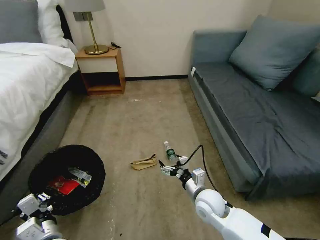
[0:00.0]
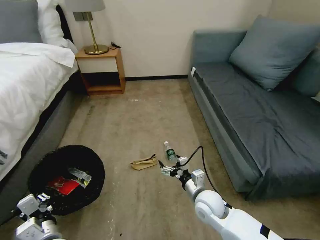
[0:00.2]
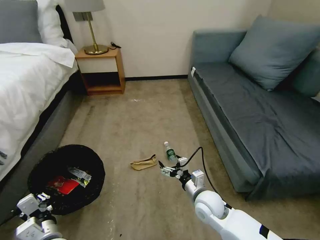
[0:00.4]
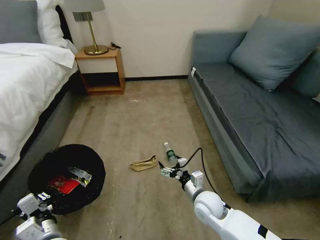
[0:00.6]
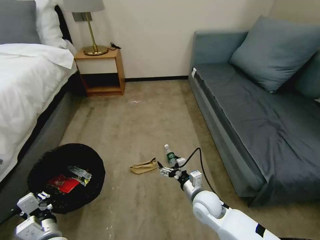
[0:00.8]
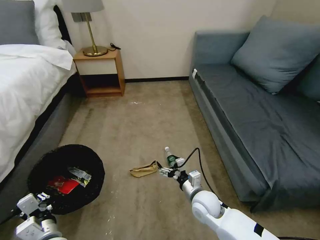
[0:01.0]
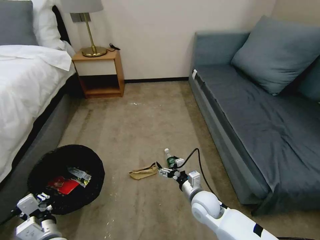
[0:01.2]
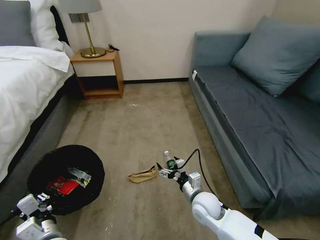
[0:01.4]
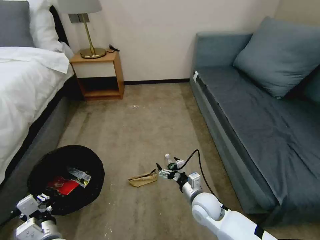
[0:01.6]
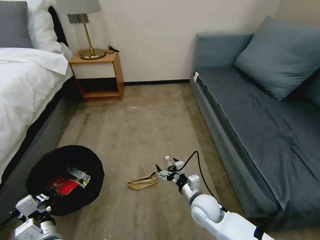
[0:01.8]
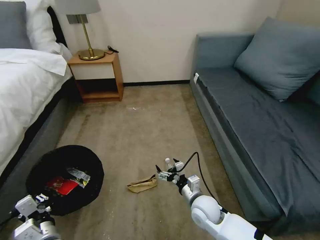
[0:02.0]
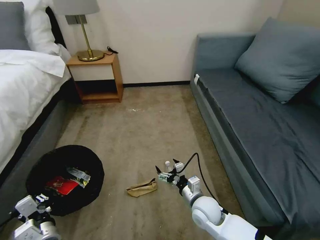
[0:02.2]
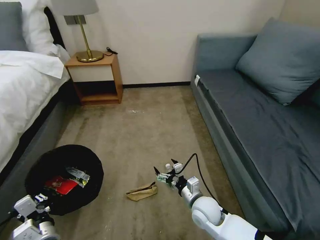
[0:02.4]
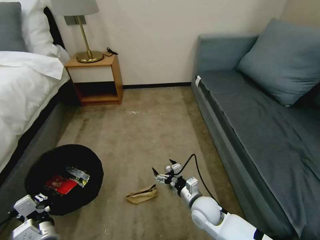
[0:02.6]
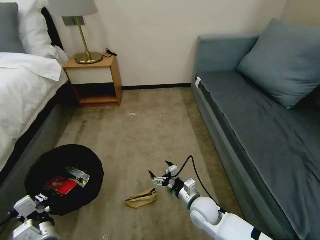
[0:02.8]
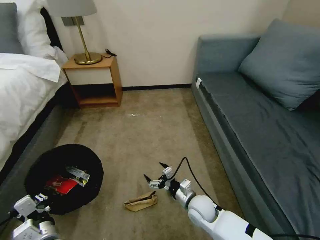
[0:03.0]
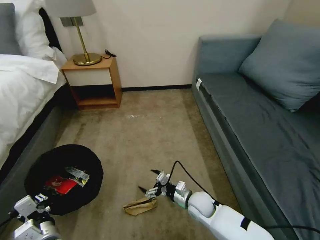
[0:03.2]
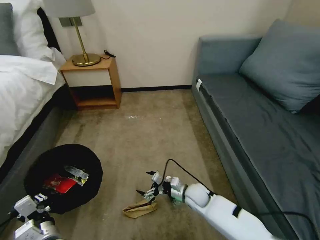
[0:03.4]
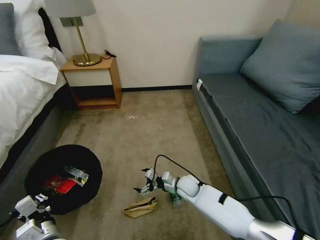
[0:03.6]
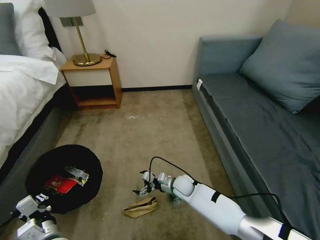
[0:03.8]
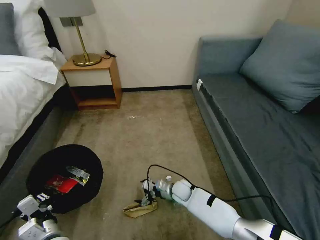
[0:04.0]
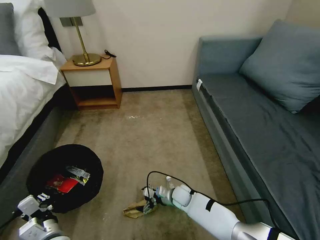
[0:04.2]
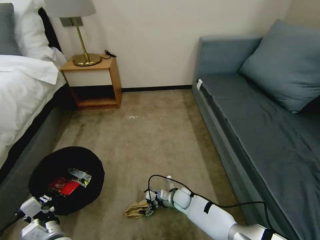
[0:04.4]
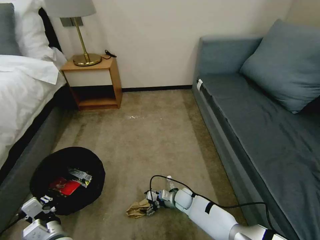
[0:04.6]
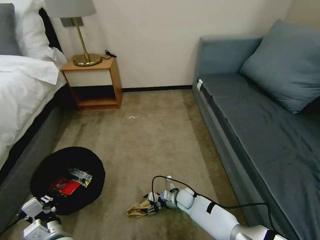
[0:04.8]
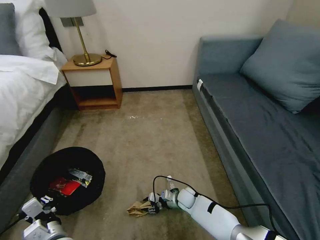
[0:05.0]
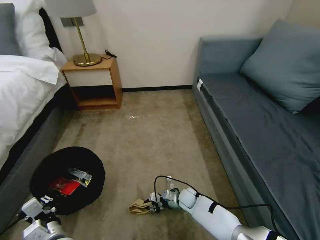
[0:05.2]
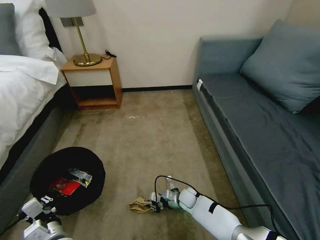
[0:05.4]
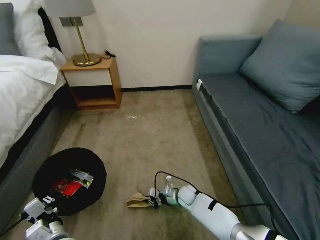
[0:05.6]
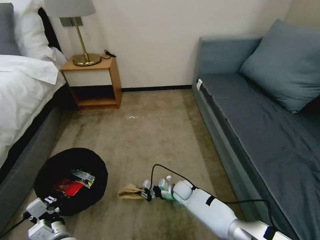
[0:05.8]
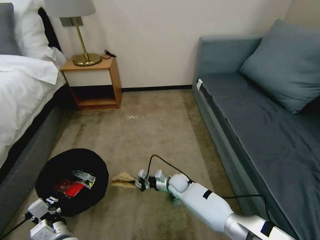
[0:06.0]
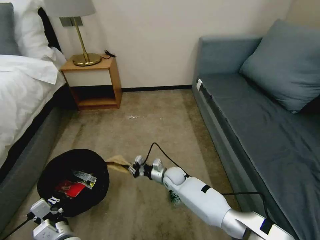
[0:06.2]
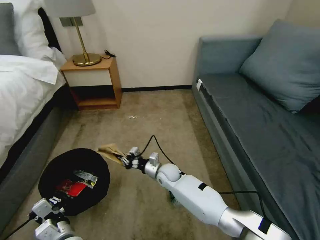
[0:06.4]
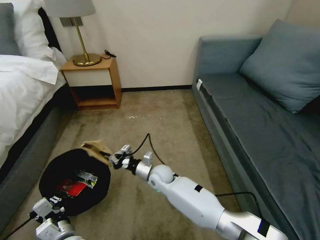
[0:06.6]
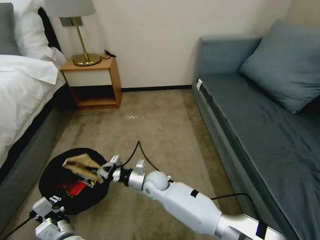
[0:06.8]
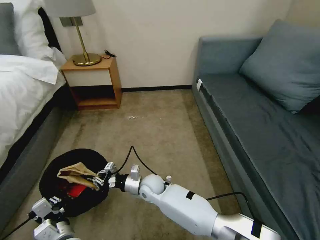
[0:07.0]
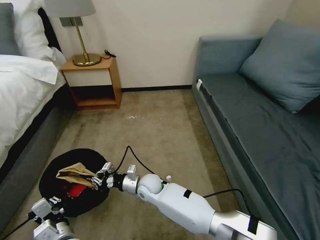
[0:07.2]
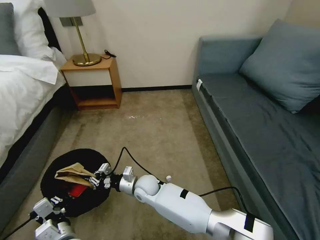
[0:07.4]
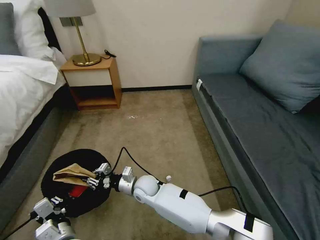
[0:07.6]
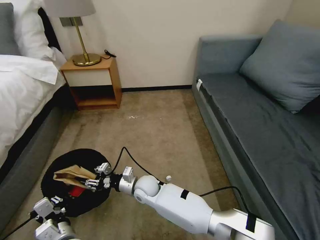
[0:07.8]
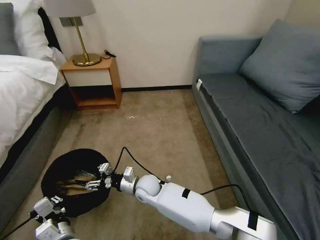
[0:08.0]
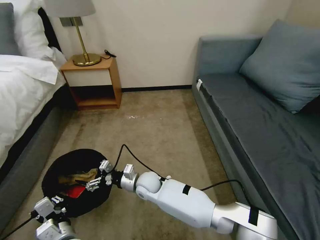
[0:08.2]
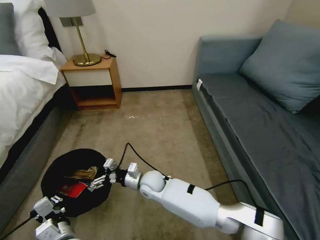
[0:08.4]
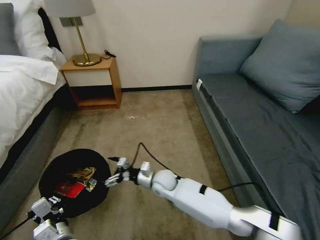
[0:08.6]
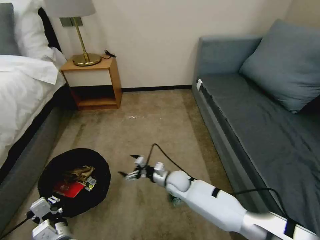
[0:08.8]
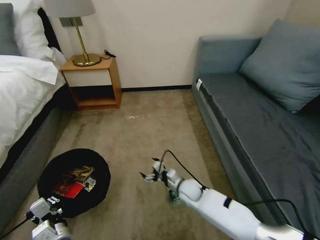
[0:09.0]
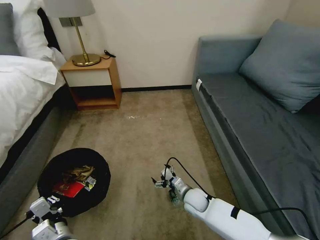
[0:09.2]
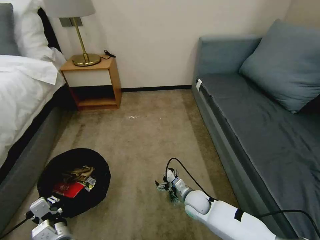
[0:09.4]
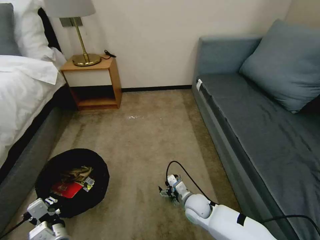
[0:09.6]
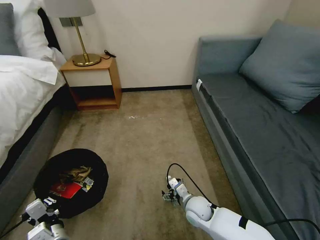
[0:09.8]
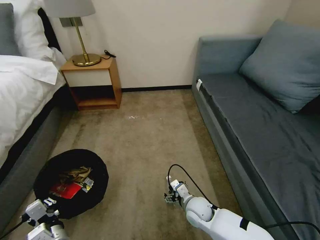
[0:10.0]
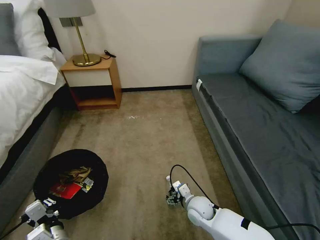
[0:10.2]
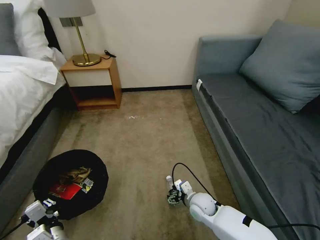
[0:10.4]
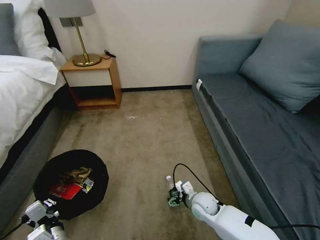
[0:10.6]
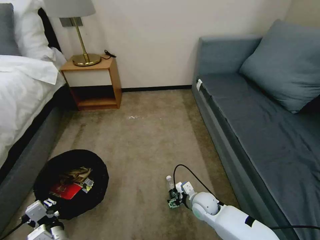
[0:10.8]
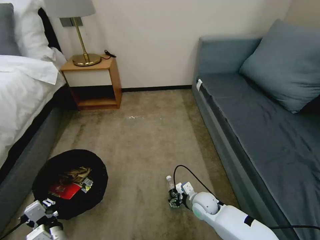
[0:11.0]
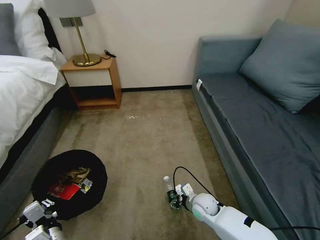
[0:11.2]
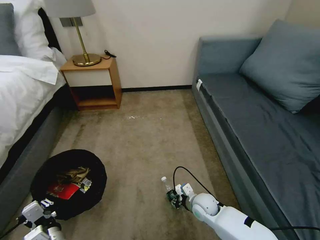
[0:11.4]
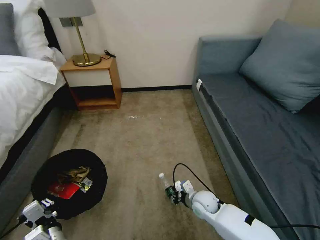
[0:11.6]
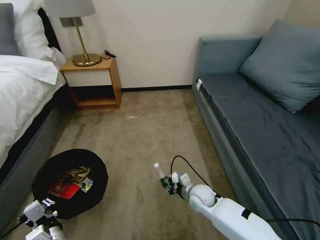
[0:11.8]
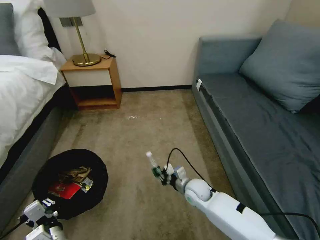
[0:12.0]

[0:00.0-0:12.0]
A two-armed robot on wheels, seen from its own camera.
Task of the whole recording: Pick up the trash bin, then pick up the garbage on the floor and place it into the trash bin.
0:00.0 to 0:01.6: The grippers stay close to where they were, moving slightly.
0:03.0 to 0:04.4: The right gripper heads downward and forward, covering about 15 cm.
0:04.4 to 0:06.0: The right gripper shifts by roughly 5 cm, and closes up.
0:06.0 to 0:07.6: The right gripper shifts approximately 15 cm to the left and upward.
0:07.6 to 0:09.0: The right gripper heads to the right, covering approximately 20 cm, and opens up.
0:09.0 to 0:10.4: The right gripper shifts approximately 5 cm backward.
0:10.4 to 0:12.0: The right gripper shifts by approximately 5 cm, and closes its fingers.

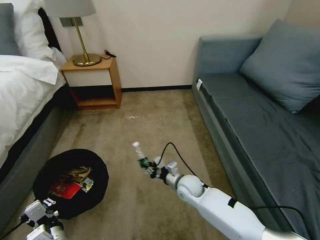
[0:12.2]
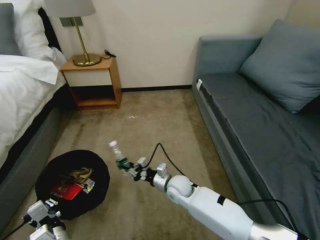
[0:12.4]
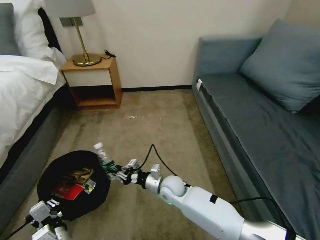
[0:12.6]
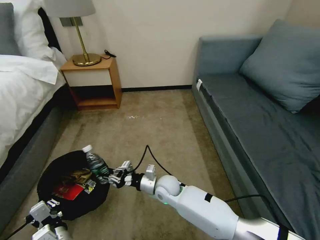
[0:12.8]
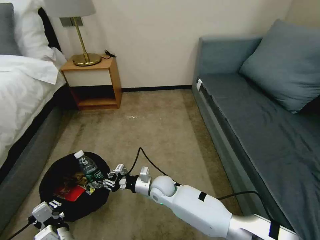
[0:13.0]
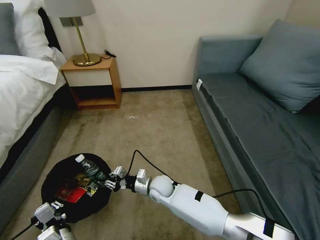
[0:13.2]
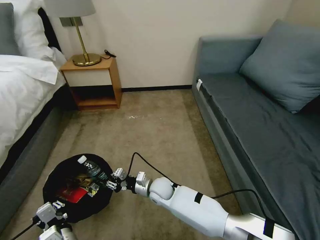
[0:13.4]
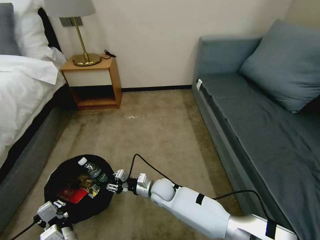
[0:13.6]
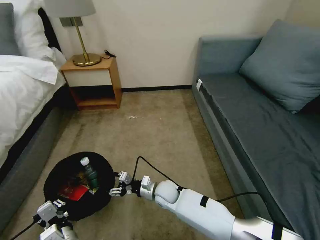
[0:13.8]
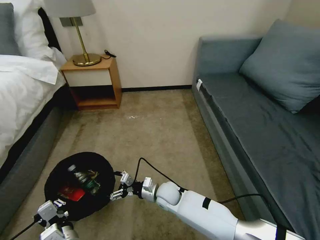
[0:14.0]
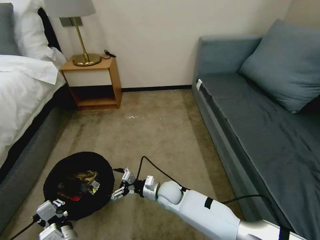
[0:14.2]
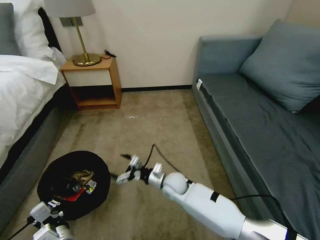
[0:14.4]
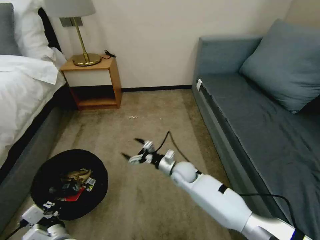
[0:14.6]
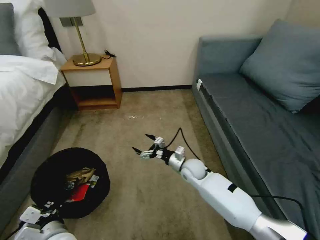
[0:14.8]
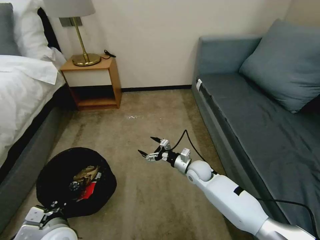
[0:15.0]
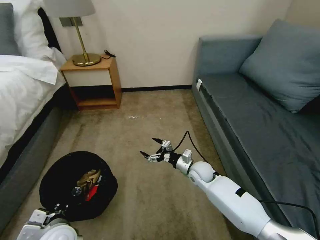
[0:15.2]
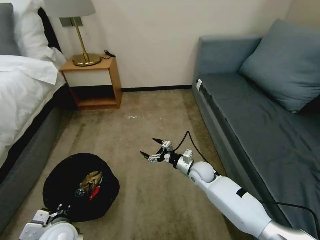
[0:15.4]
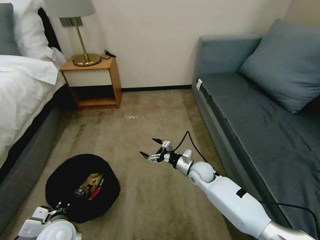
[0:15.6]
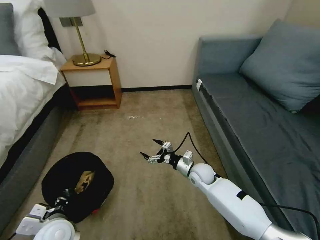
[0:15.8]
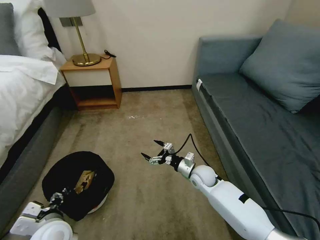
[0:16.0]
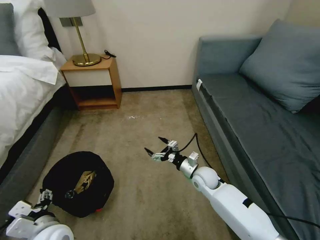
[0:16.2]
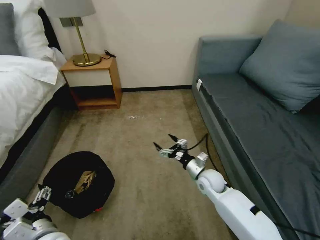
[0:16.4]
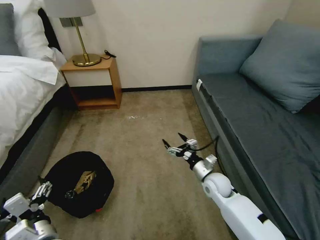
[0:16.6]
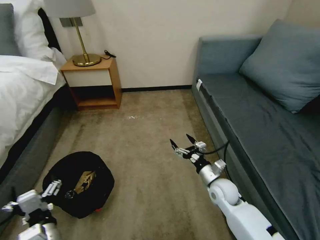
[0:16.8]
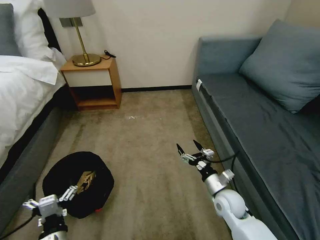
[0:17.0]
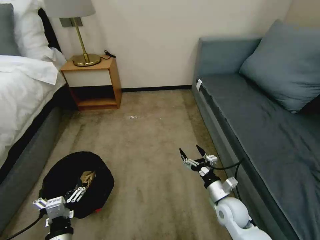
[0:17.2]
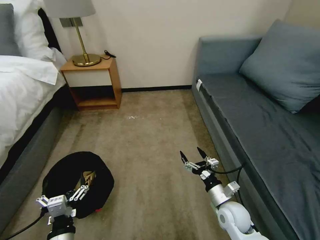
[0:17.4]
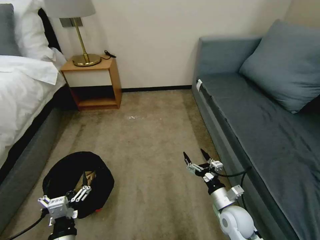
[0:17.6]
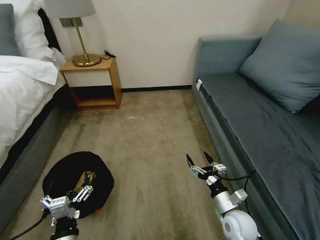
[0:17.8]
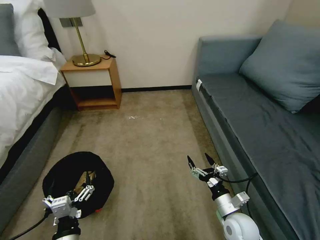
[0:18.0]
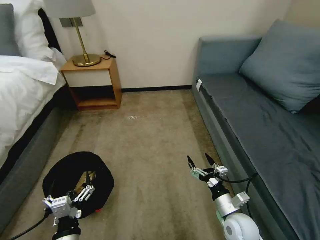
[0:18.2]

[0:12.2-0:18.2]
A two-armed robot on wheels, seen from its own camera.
Task of the whole recording: Pick up the trash bin, then pick up the garbage on the floor and place it into the trash bin.
0:12.2 to 0:13.8: The right gripper goes about 10 cm to the left, and opens.
0:13.8 to 0:15.2: The left gripper shifts approximately 5 cm upward, while the right gripper heads to the right and forward, covering some 15 cm, and opens.
0:15.2 to 0:16.6: The right gripper travels backward by about 5 cm; the left gripper opens up.
0:16.6 to 0:18.2: The left gripper changes place by approximately 5 cm. The right gripper shifts some 15 cm backward.

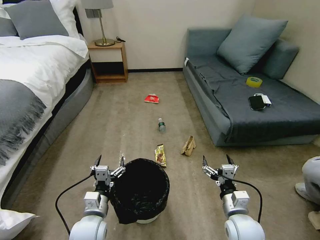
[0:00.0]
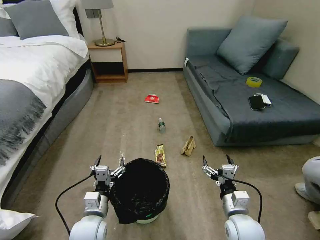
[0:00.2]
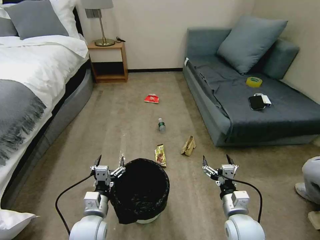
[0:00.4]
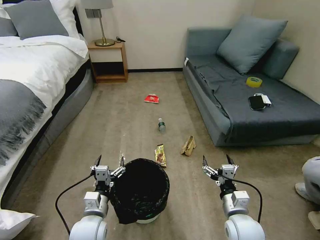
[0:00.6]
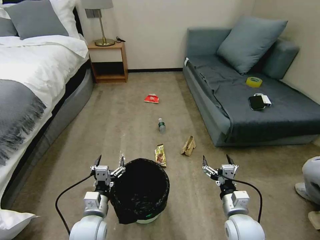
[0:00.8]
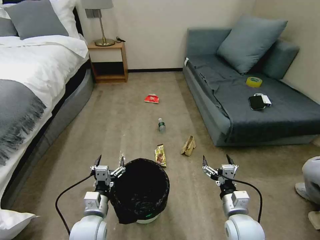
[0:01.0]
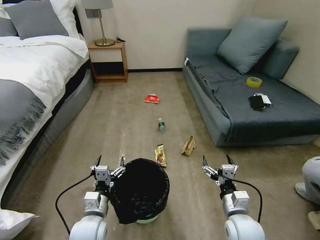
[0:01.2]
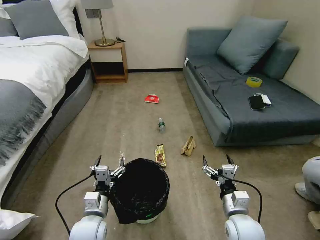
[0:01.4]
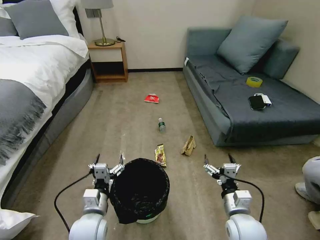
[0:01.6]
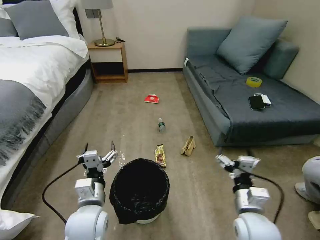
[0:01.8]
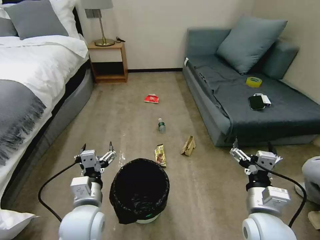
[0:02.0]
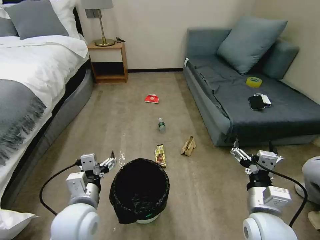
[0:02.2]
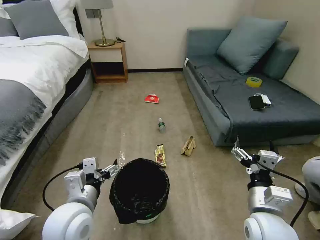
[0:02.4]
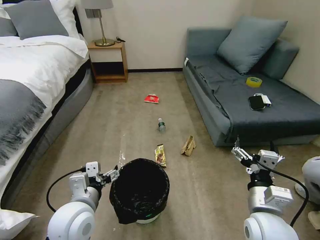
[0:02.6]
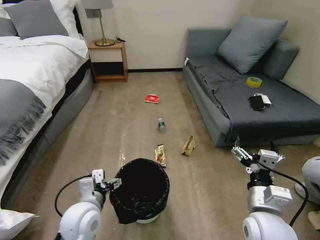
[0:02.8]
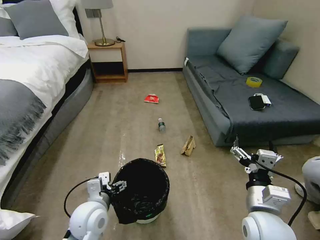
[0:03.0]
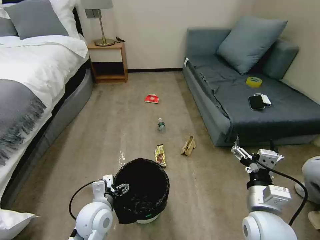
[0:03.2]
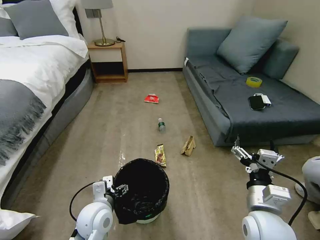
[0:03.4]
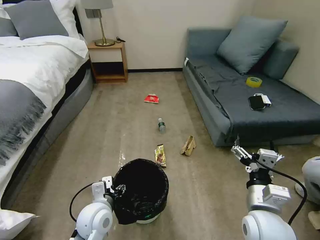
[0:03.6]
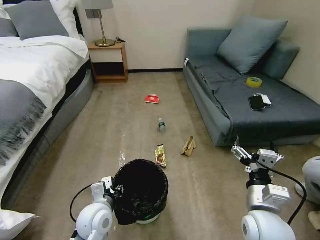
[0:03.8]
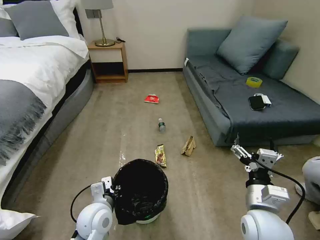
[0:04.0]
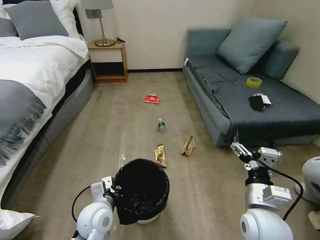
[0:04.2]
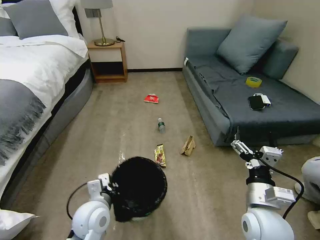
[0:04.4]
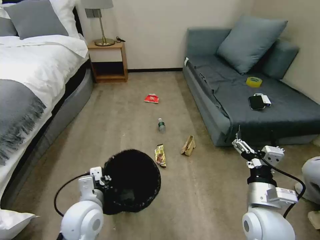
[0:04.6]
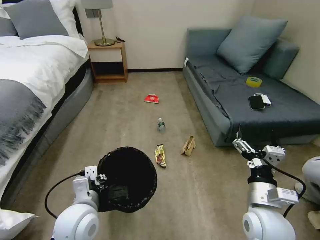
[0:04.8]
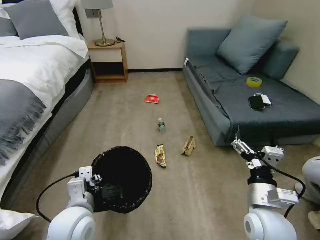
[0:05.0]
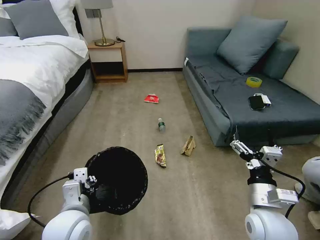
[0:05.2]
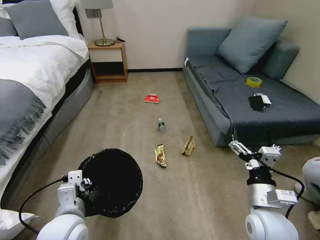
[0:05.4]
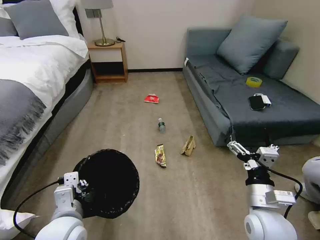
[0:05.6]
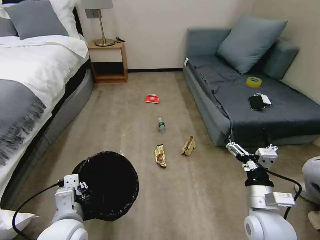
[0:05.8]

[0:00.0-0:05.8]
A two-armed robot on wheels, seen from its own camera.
Task of the whole recording: Pick up the trash bin, then pick up the garbage on the floor and place it into the trash bin.
0:01.4 to 0:02.8: Both grippers travel together upward, approximately 10 cm.
0:02.8 to 0:04.4: The left gripper closes.
0:04.4 to 0:05.8: The left gripper travels upward and backward by some 10 cm.
